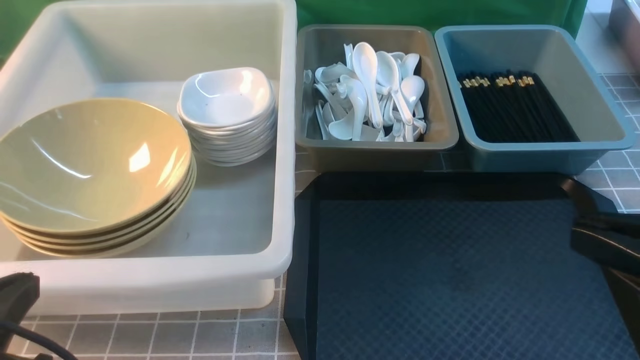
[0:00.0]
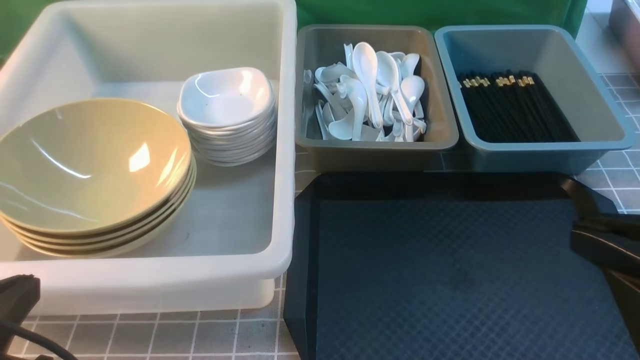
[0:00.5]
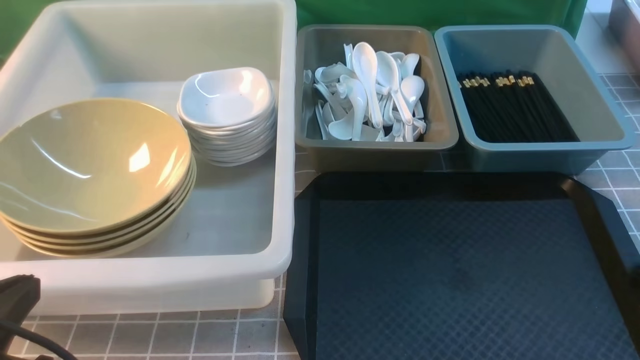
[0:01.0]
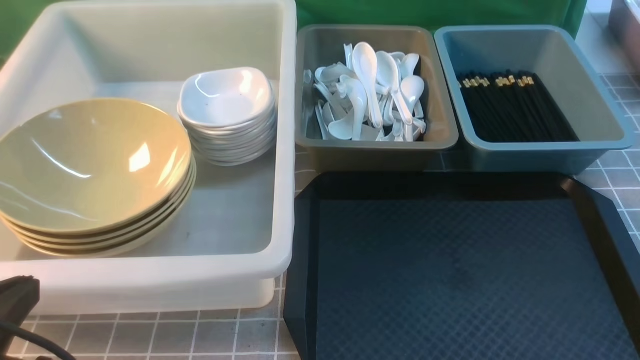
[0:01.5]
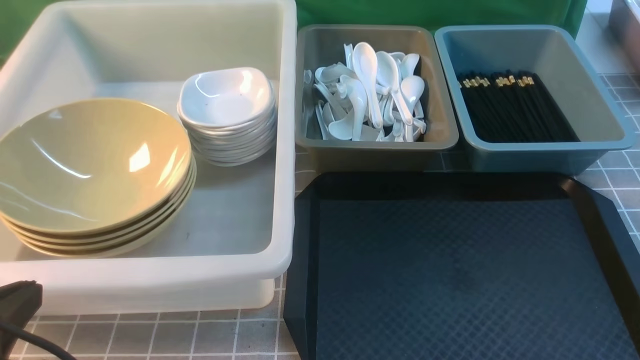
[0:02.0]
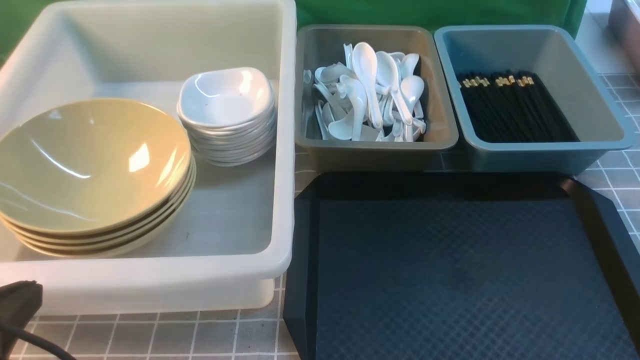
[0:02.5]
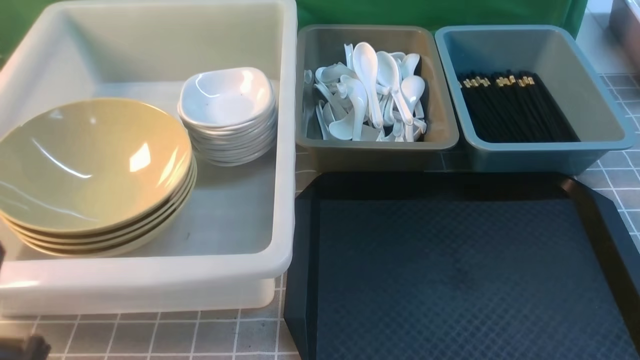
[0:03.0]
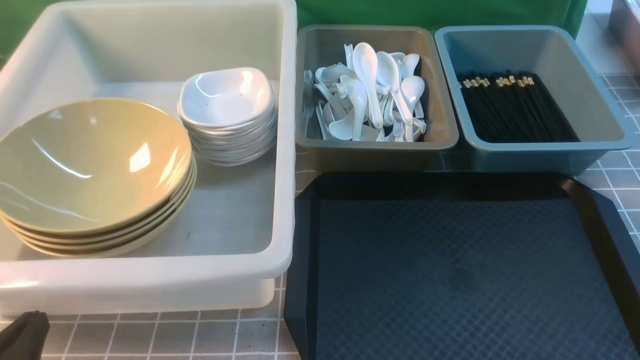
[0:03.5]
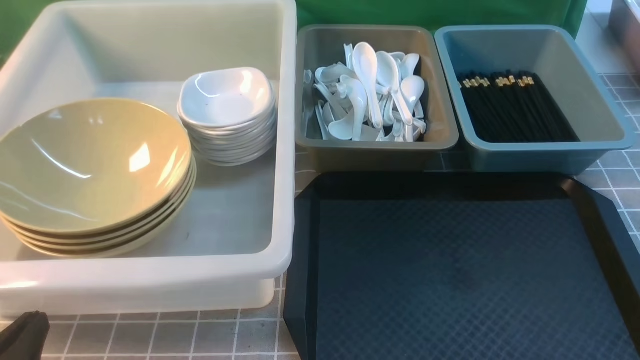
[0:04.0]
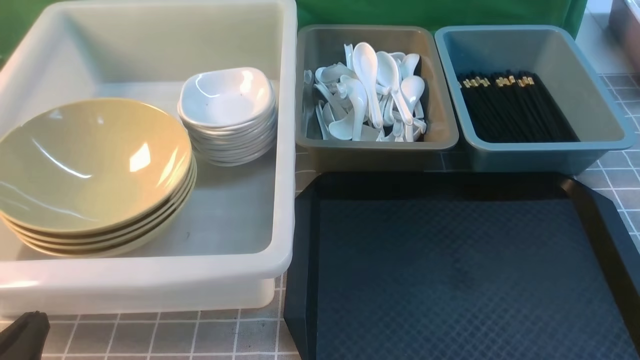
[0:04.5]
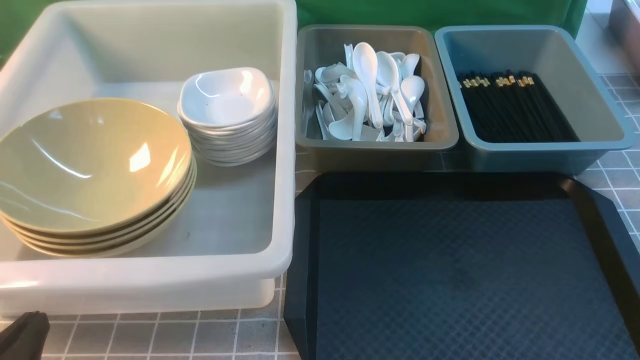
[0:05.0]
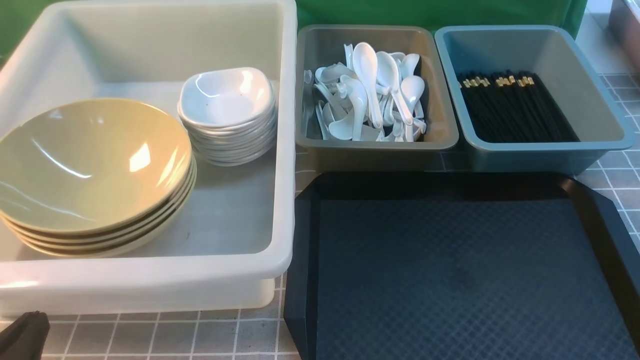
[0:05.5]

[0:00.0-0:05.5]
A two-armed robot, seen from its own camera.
Task of the whole recording: on grey table put chopsticks spoon bowls plates into blue grey white boxes.
0:00.0 to 0:02.0: The right gripper shifts roughly 20 cm downward and to the right.
0:02.0 to 0:03.5: The left gripper travels downward by some 10 cm.
0:03.5 to 0:05.5: Both grippers stay put.

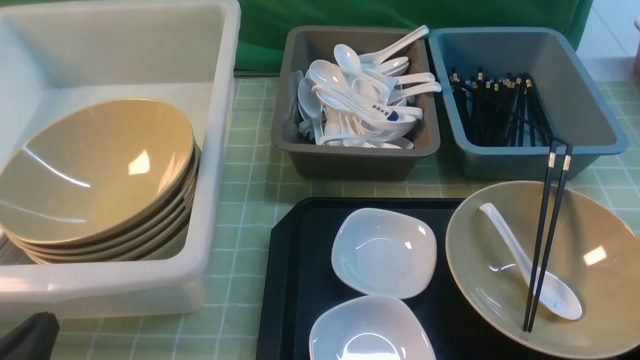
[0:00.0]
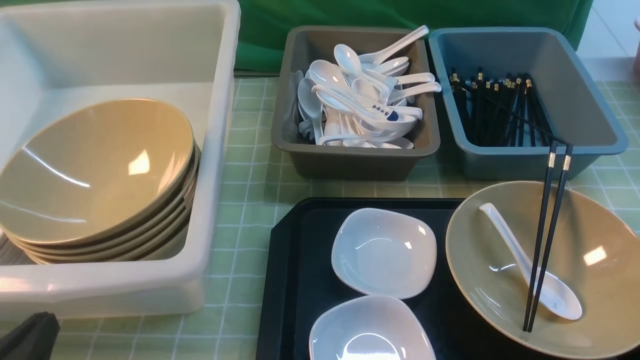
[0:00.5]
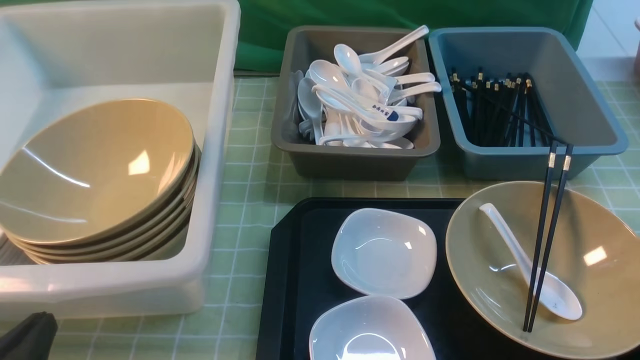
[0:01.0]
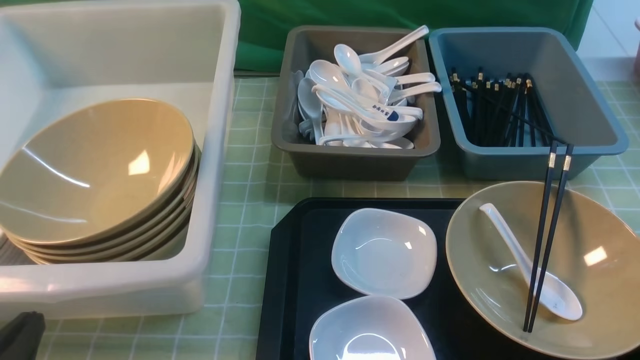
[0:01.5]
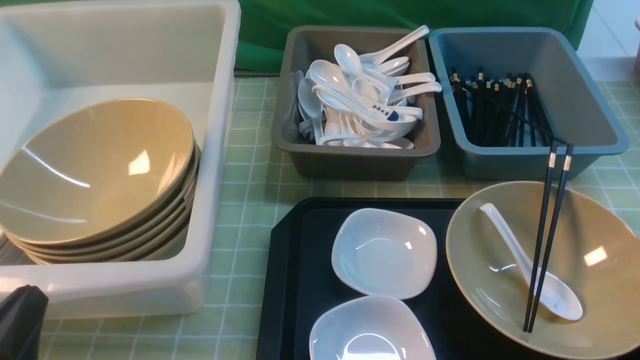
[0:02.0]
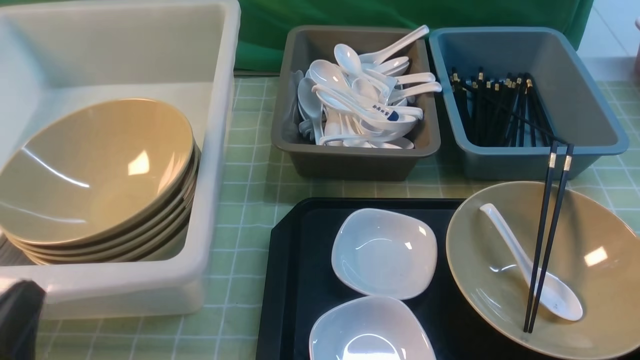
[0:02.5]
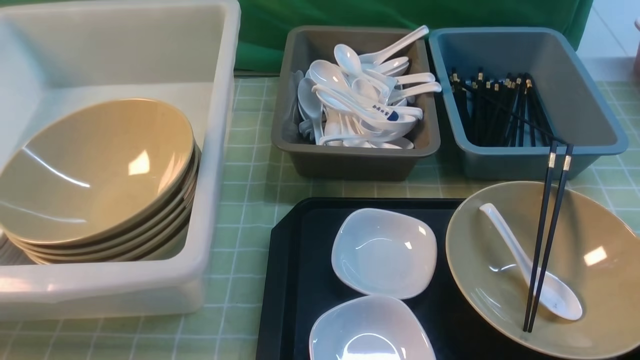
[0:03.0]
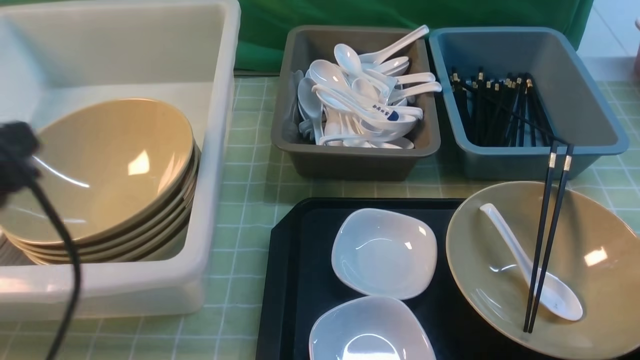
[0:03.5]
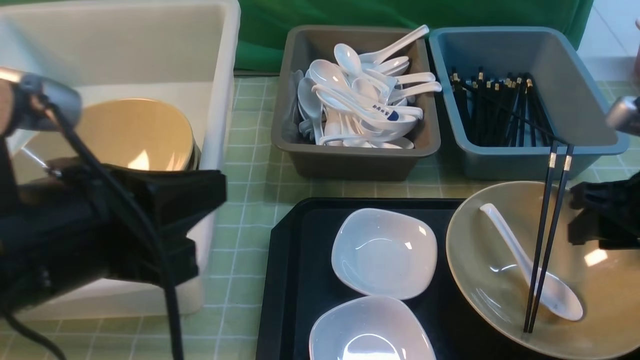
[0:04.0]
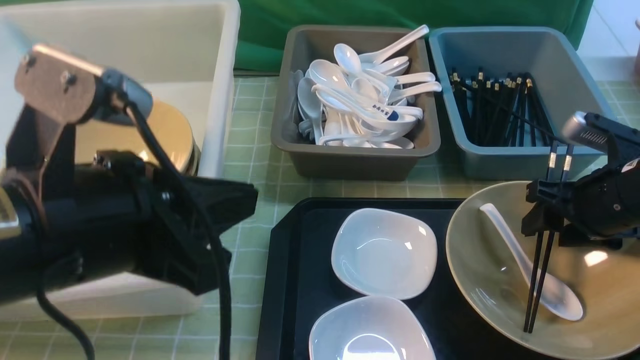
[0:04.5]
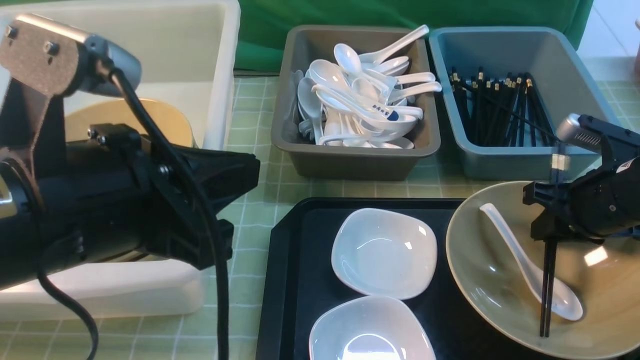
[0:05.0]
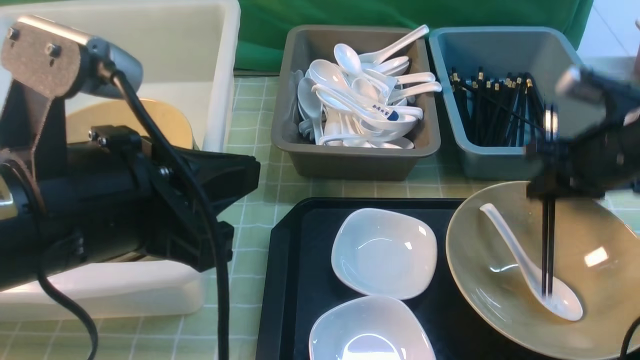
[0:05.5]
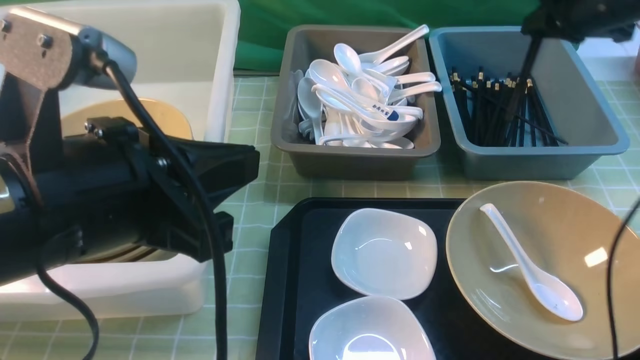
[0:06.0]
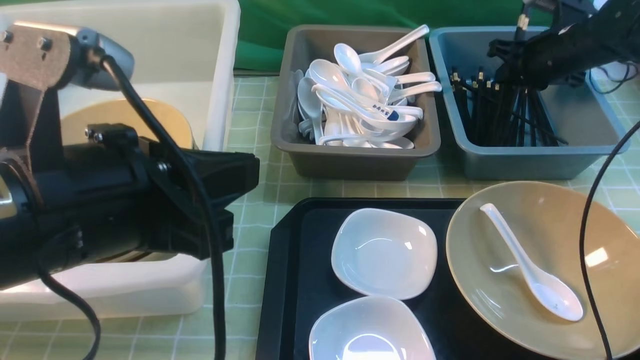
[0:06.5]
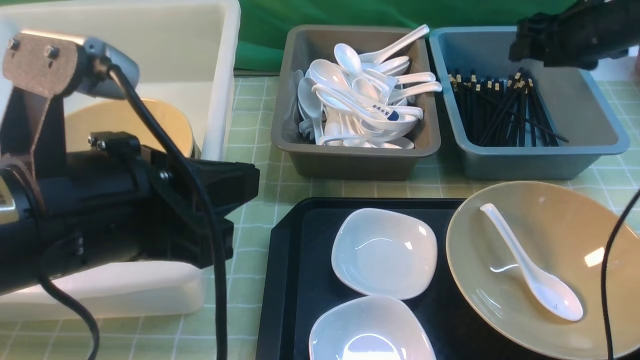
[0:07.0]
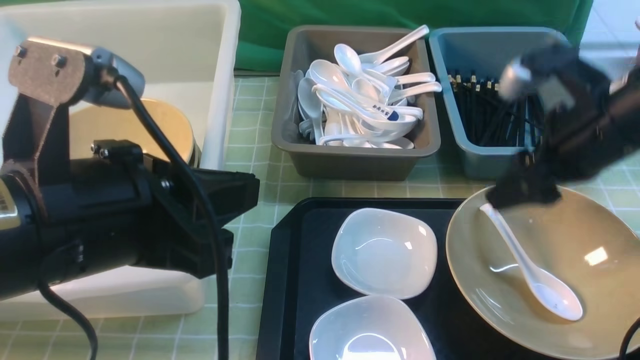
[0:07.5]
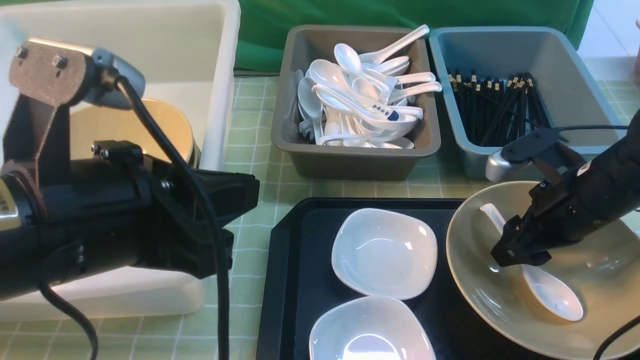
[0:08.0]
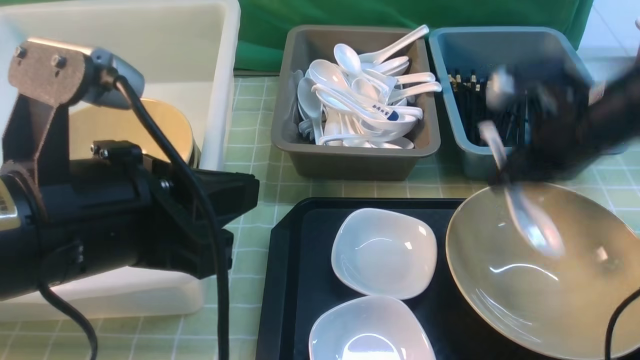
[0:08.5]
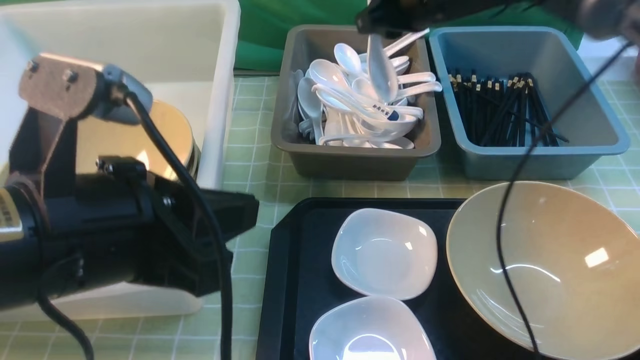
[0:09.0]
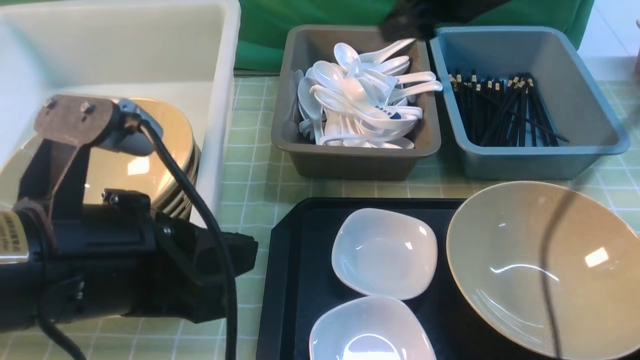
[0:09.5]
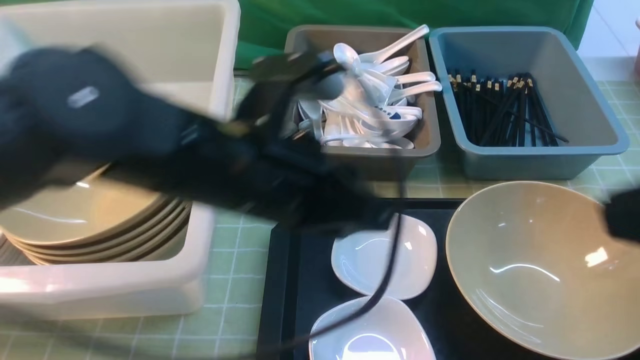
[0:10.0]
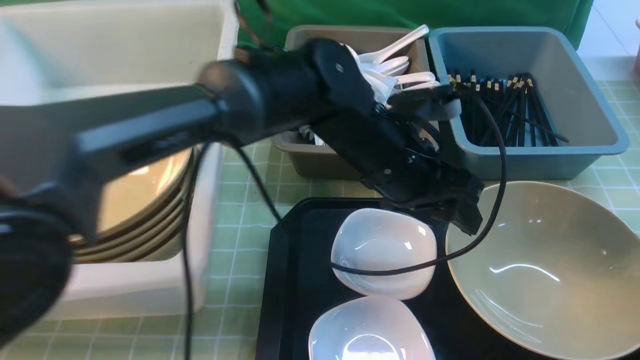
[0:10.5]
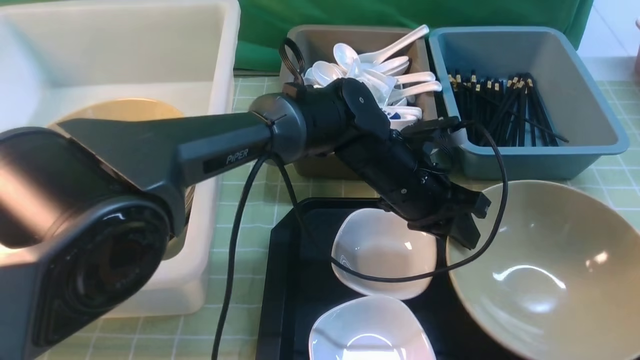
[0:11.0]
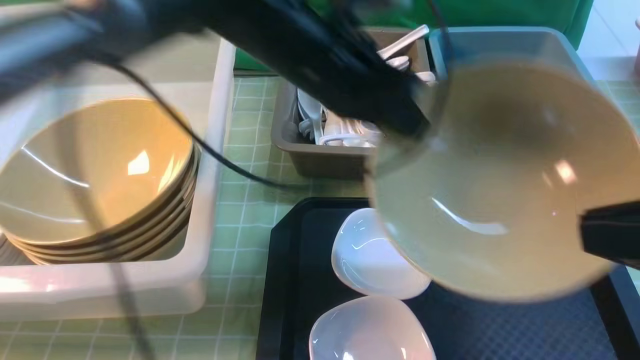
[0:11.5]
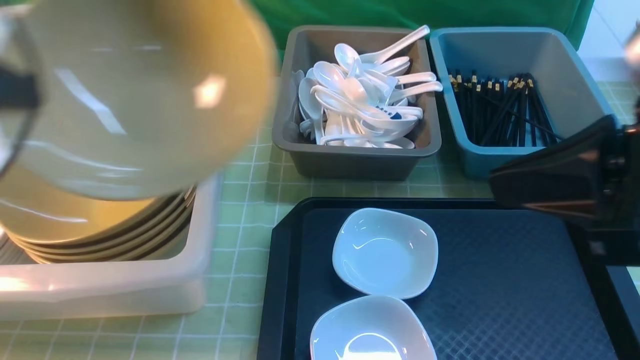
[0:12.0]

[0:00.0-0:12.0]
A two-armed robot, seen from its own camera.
Task of the whole recording: on green table put chopsticks spoon bowls plates into blue grey white boxes.
Step, 0:00.0 to 0:05.5: use the right arm to grab the chopsticks.
Step, 0:06.0 to 0:06.5: use the right arm to put the chopsticks into the small storage box on the right.
Step, 0:07.0 to 0:08.0: use the right arm to grab the soup spoon in the middle.
Step, 0:09.0 to 0:09.5: use the right arm to put the soup spoon into the small storage box in the middle.
Step, 0:10.0 to 0:11.5: use the left arm to grab the yellow noodle bowl on the left.
0:02.0 to 0:04.0: The right gripper is displaced forward by some 20 cm. The left gripper shifts approximately 20 cm upward, to the right and forward.
0:04.0 to 0:06.0: The right gripper travels forward by some 20 cm, and closes its fingers.
0:06.0 to 0:08.0: The right gripper moves backward and downward, roughly 20 cm, and opens.
0:08.0 to 0:10.0: The right gripper shifts about 30 cm upward and backward, and closes up; the left gripper goes about 15 cm to the right and forward.
0:10.0 to 0:12.0: The right gripper ends up some 5 cm from where it was. The left gripper travels to the left by about 25 cm, and opens and closes again.

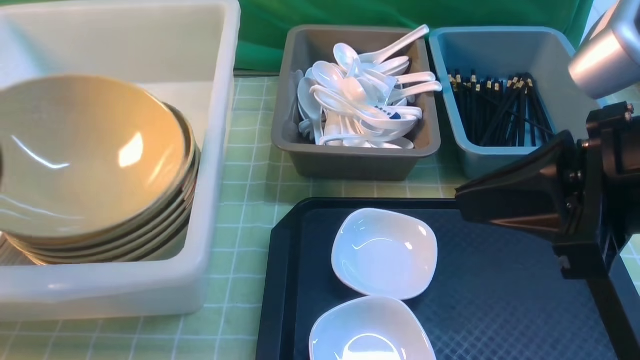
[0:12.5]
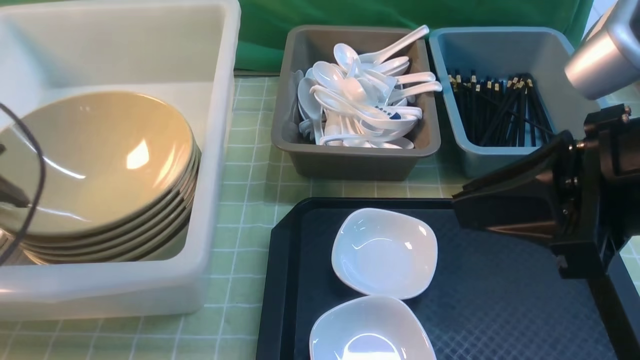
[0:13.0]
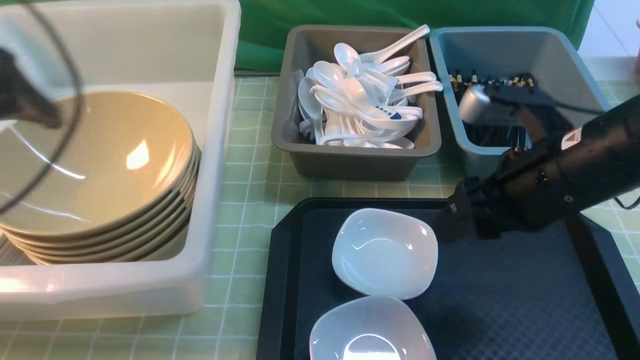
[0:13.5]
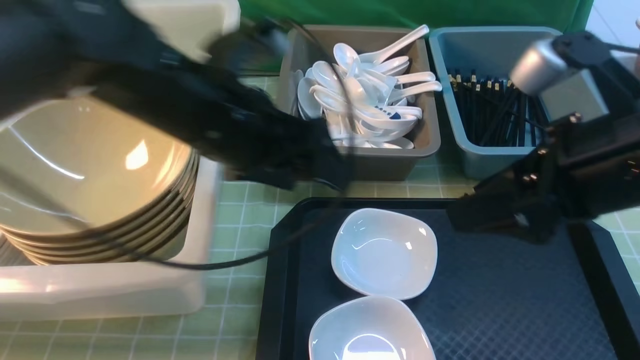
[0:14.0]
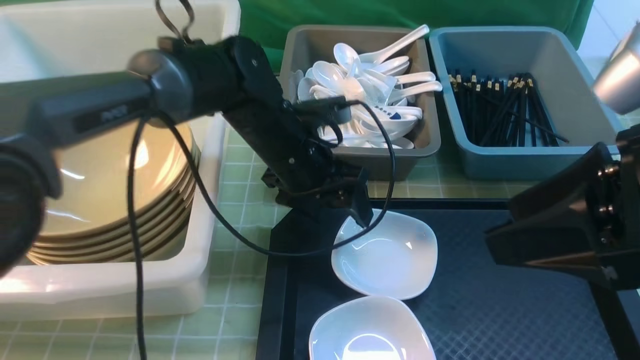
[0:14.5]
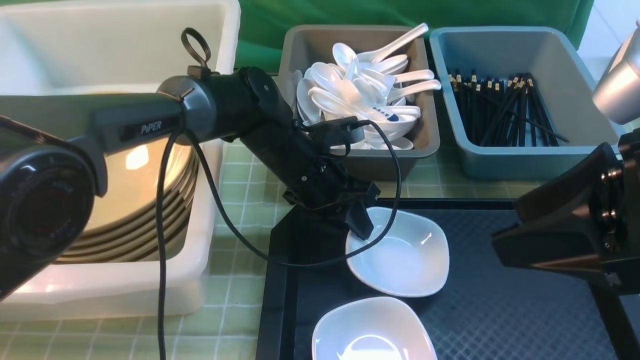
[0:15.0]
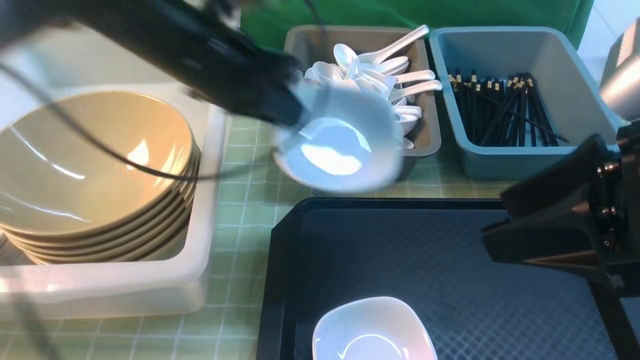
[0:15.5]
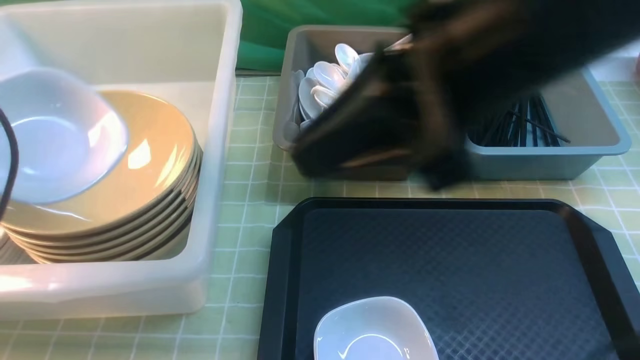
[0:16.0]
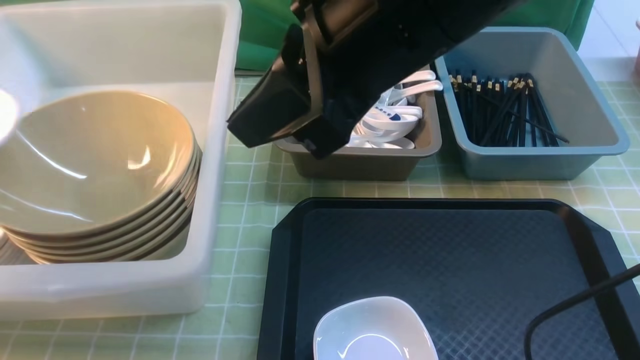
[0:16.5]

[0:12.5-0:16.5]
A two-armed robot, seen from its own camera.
Task of the whole recording: on green table put chopsticks spoon bowls plates into blue grey white boxes.
Step, 0:13.5 to 0:15.0: use the left arm to grab the plate.
0:12.5 to 0:14.5: The left gripper goes some 35 cm to the right and forward, and opens; the right gripper travels forward and back again, roughly 10 cm each way, and opens its fingers.
0:14.5 to 0:16.5: The left gripper heads to the left, backward and upward, covering approximately 40 cm, and closes. Meanwhile the right gripper moves to the left and forward, some 20 cm, and closes.
